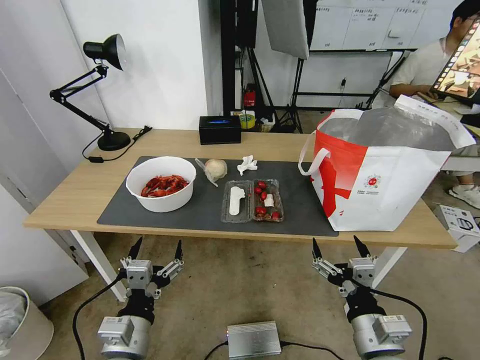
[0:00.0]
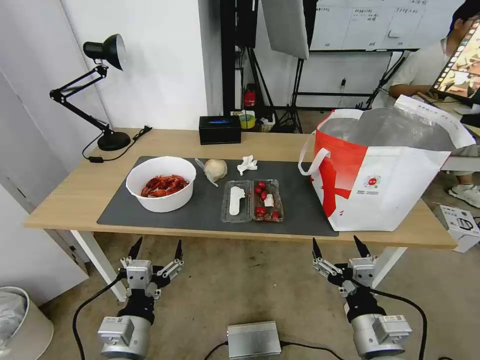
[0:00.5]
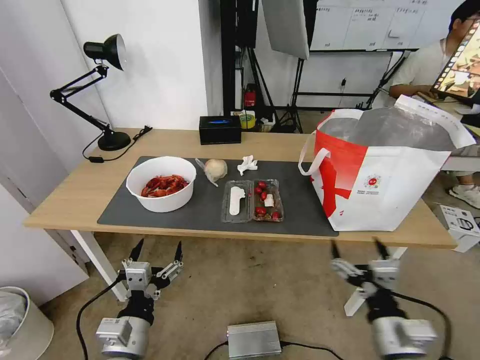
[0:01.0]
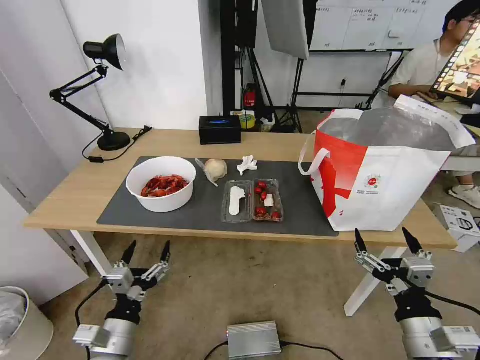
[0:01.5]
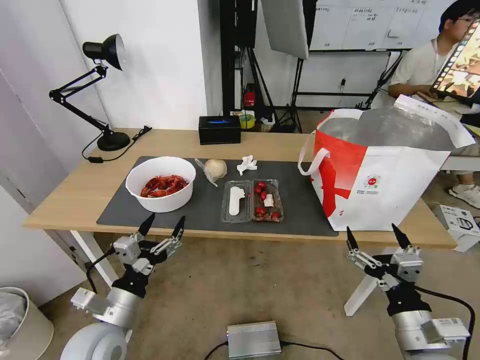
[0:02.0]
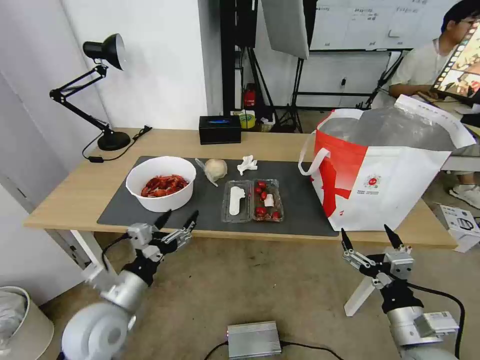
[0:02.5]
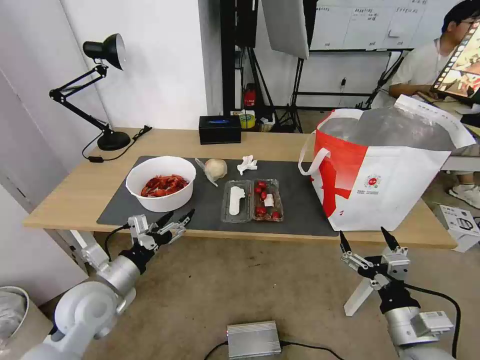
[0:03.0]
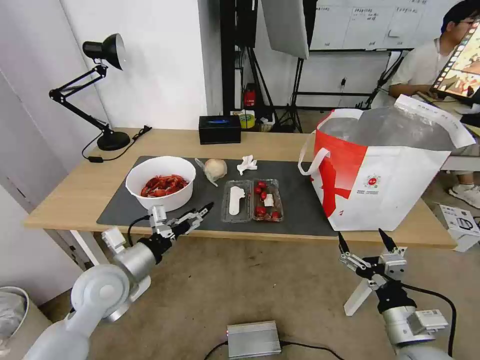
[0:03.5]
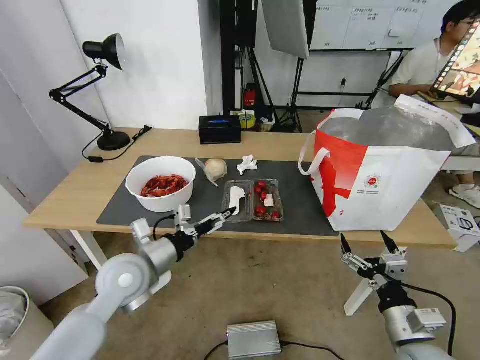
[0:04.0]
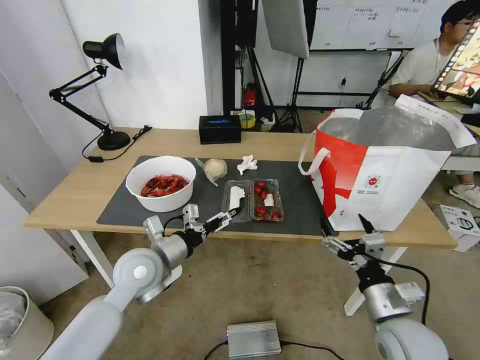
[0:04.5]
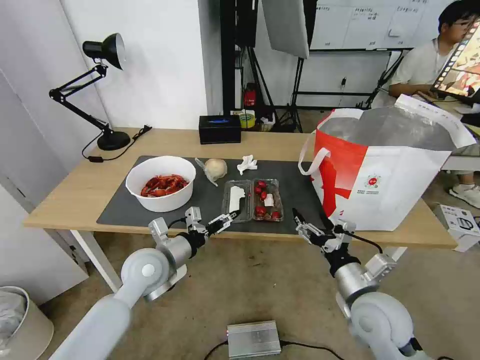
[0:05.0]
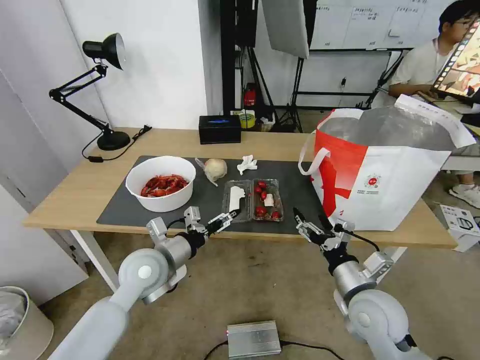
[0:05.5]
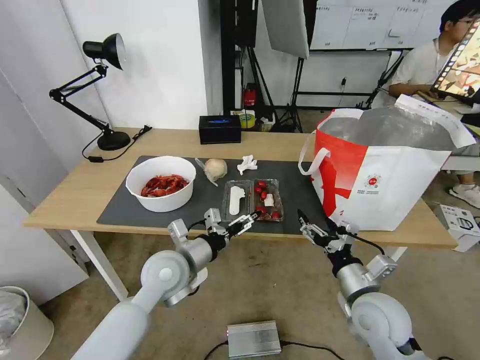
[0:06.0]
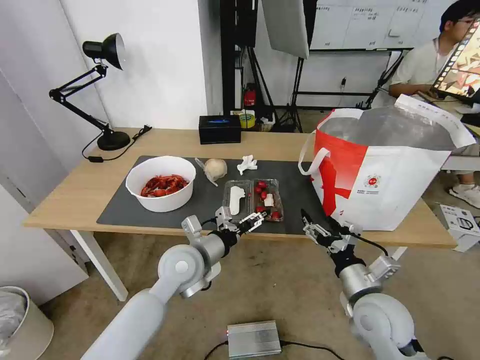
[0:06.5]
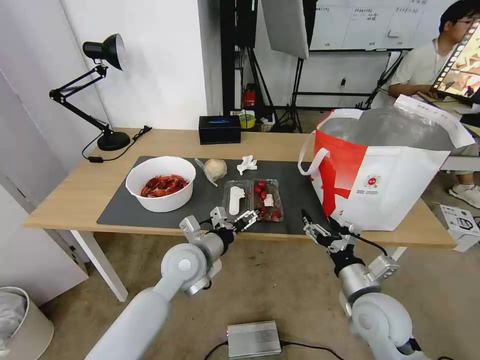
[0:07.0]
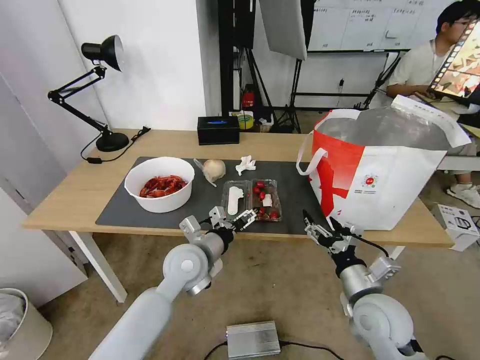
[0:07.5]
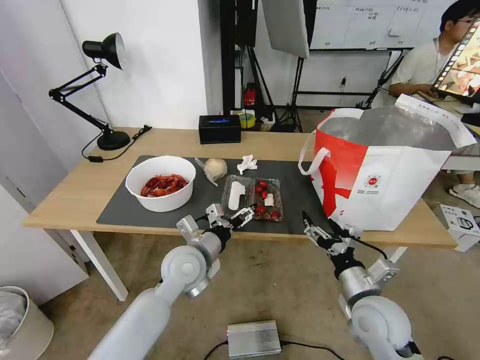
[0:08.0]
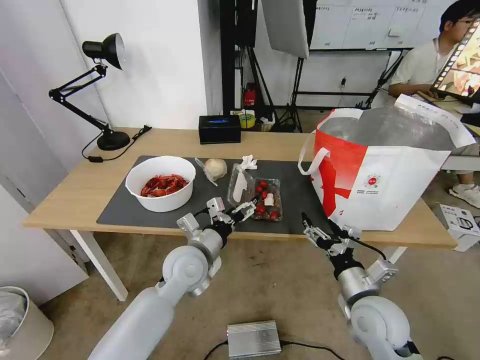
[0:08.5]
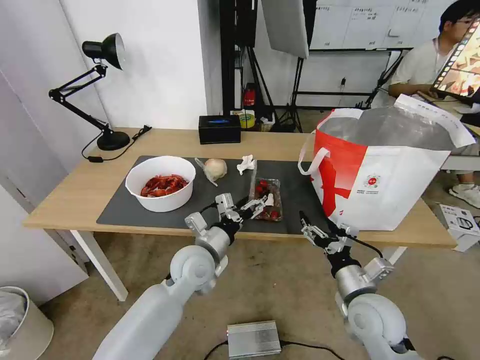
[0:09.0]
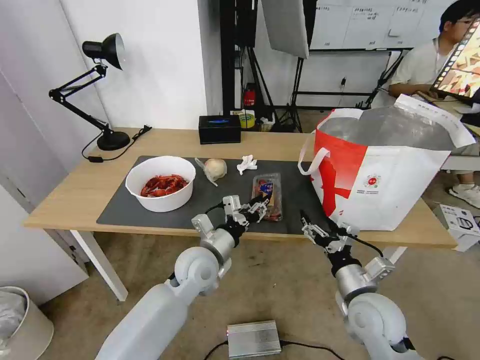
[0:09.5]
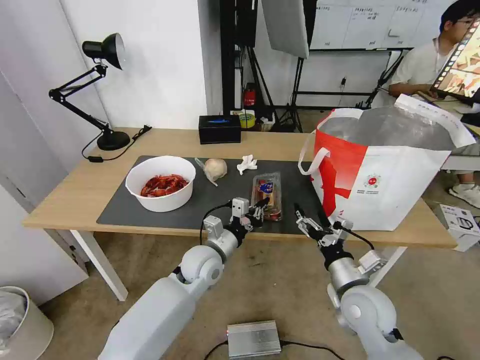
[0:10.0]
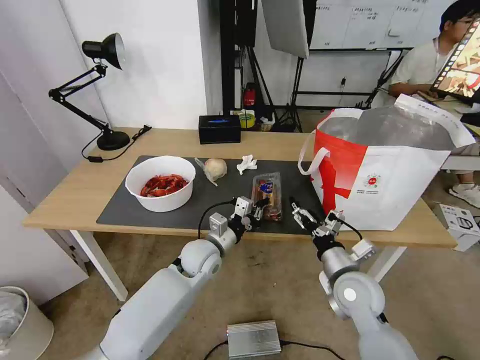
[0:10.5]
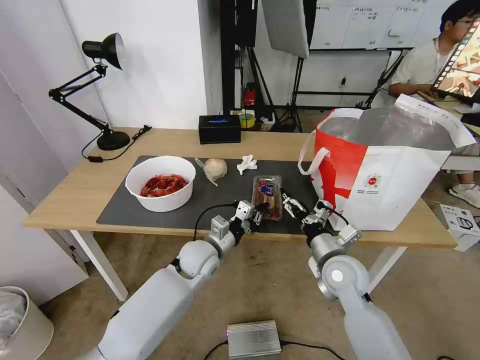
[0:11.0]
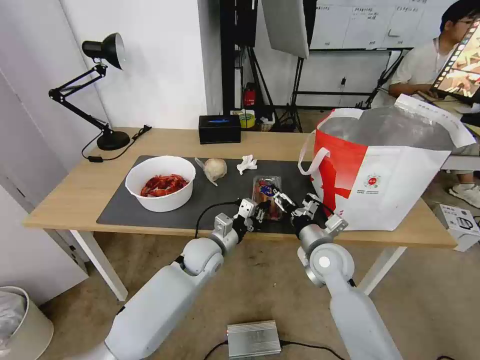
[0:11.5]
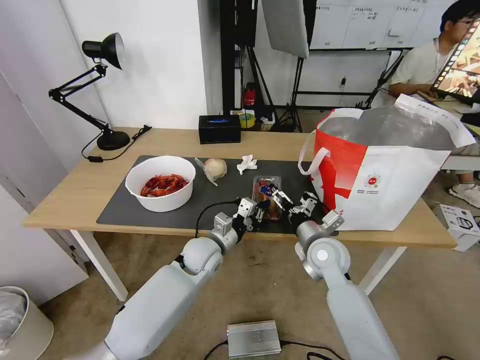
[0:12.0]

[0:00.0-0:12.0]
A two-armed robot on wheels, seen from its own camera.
Task of the whole recording: Pick up the trash from the table and place it into the takeout bag.
0:02.0 to 0:04.0: The left gripper shifts some 10 cm forward and upward.
0:04.0 to 0:06.0: The right gripper moves forward and to the left, approximately 10 cm; the left gripper is displaced to the right by roughly 5 cm.
0:06.0 to 0:08.0: The grippers move only a little.
0:08.0 to 0:10.0: The left gripper ends up about 5 cm from where it was, and closes.
0:10.0 to 0:12.0: The right gripper shifts about 10 cm forward.

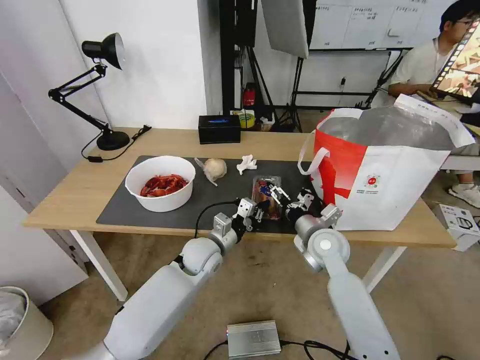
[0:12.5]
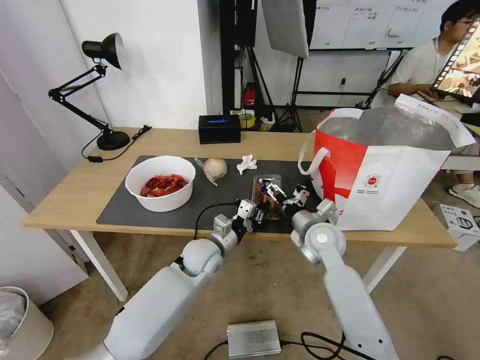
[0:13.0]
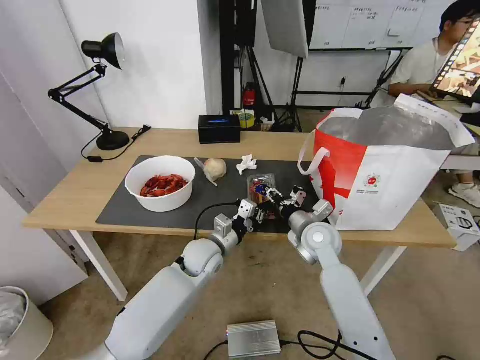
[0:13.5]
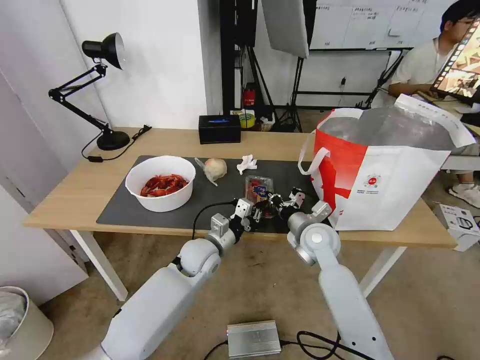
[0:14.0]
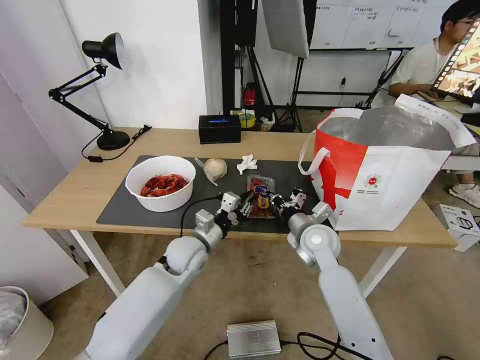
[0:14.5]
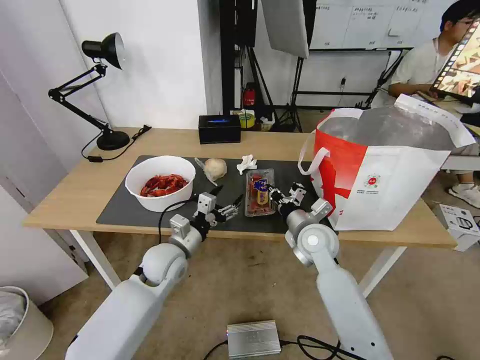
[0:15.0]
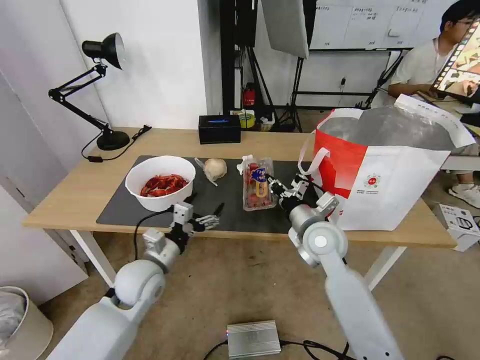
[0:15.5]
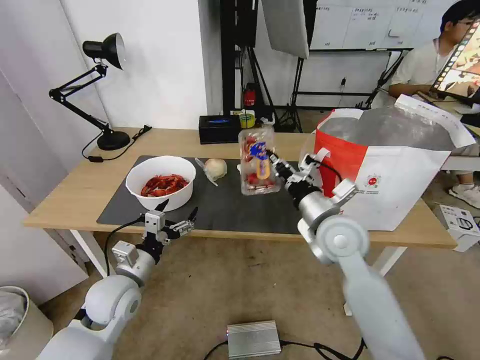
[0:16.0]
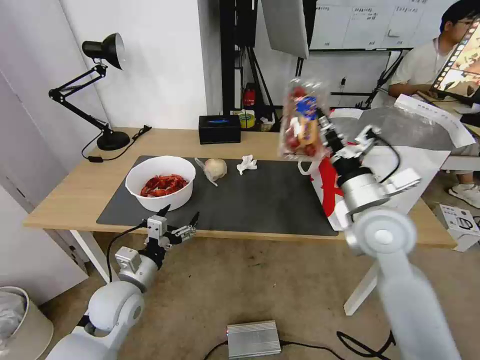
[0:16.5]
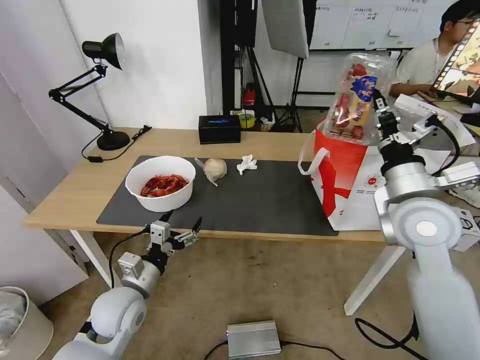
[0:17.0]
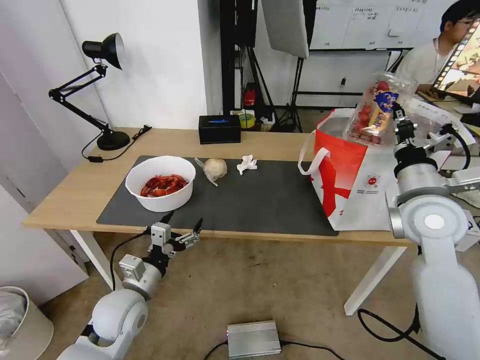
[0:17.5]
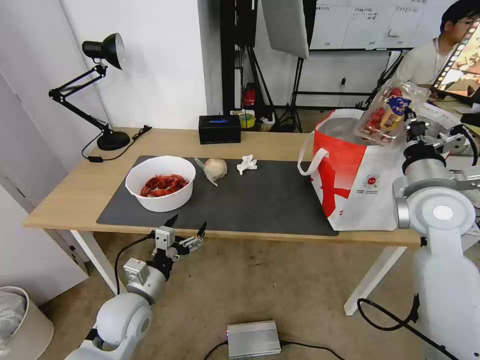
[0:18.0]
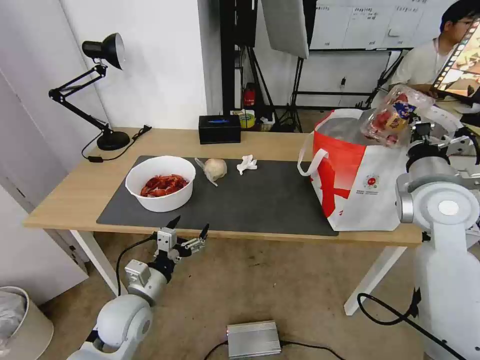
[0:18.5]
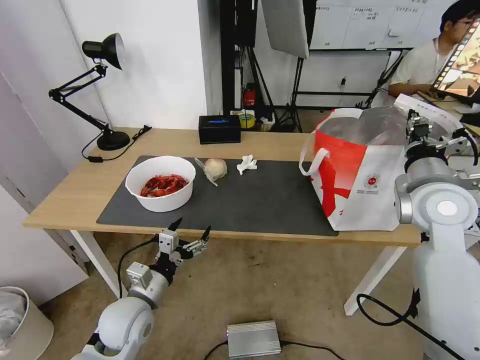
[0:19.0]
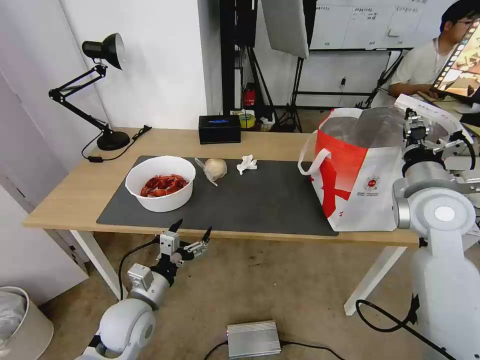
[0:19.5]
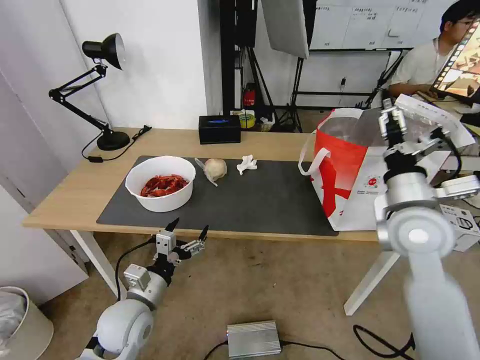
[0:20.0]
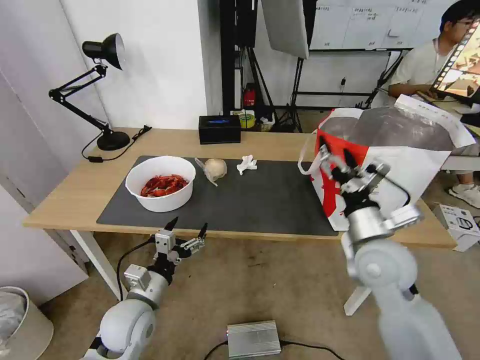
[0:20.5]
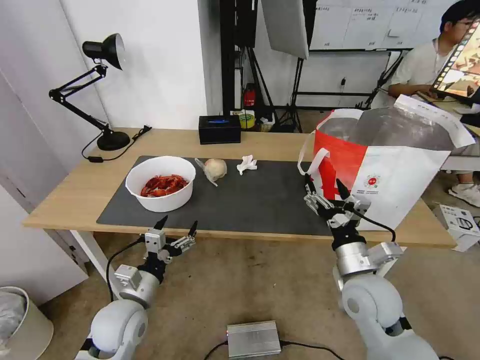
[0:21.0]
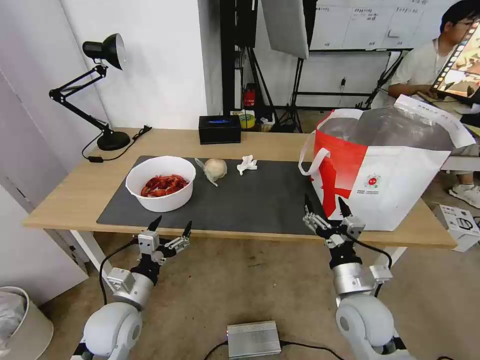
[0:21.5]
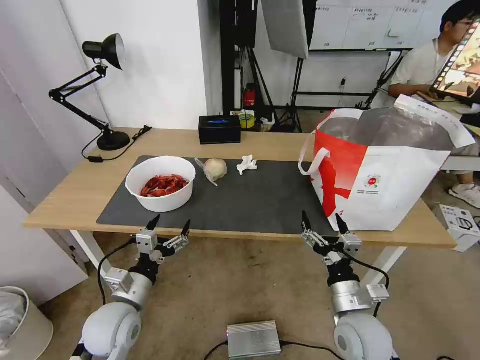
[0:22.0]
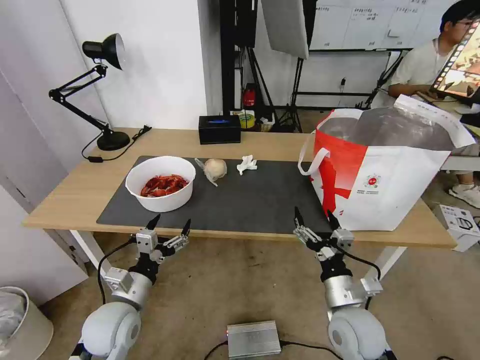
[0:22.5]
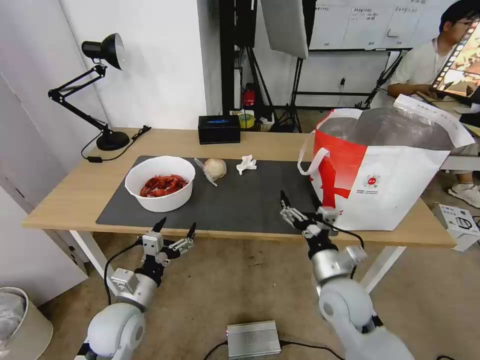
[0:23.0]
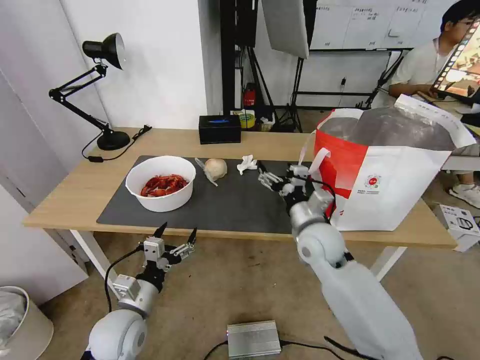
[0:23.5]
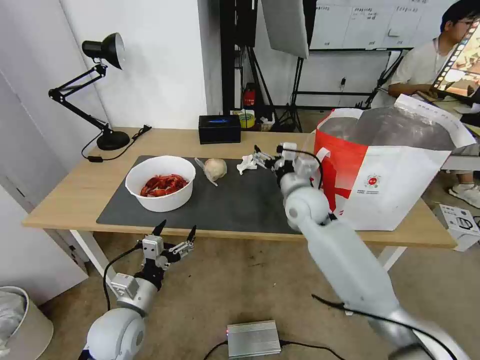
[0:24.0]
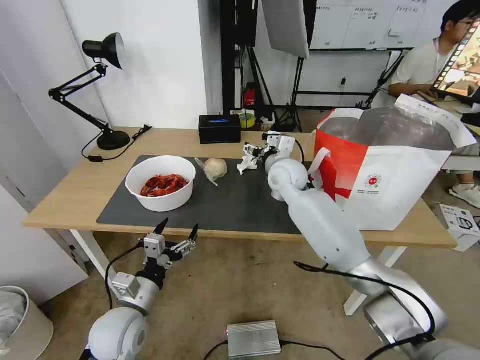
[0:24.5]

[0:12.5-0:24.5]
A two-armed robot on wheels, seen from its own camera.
Task of the whole recording: Pick up the trash from the table and place it into the takeout bag.
0:12.5 to 0:14.5: The right gripper closes its fingers.
0:14.5 to 0:16.5: The left gripper heads to the left and backward, covering some 15 cm, and opens its fingers, while the right gripper shifts about 15 cm upward and backward.
0:16.5 to 0:18.5: The right gripper moves to the right, roughly 10 cm.
0:18.5 to 0:20.5: The right gripper travels downward, to the left and backward by about 15 cm, and opens its fingers.
0:20.5 to 0:22.5: The right gripper shifts roughly 15 cm downward and backward.
0:22.5 to 0:24.5: The right gripper shifts roughly 35 cm forward and upward.

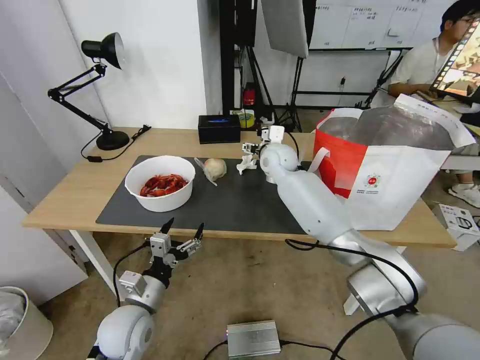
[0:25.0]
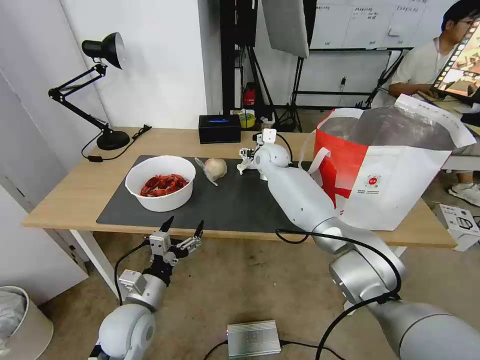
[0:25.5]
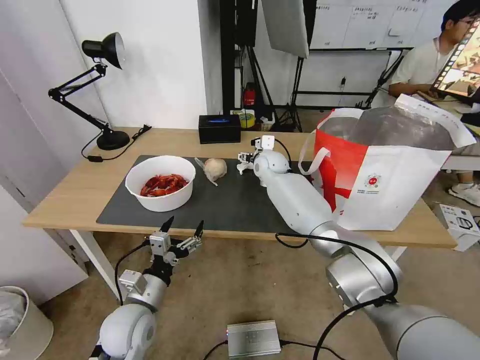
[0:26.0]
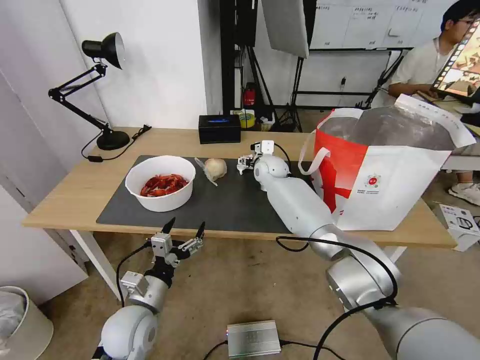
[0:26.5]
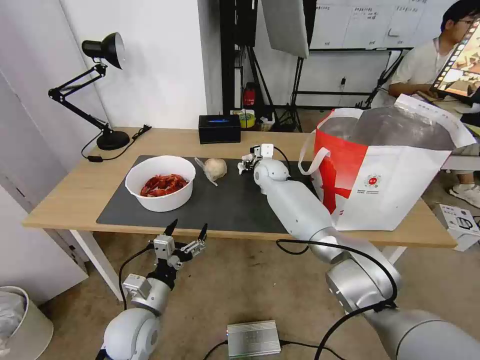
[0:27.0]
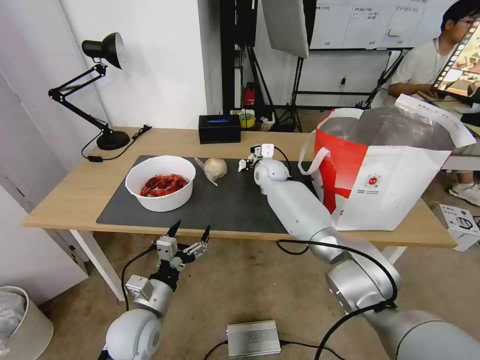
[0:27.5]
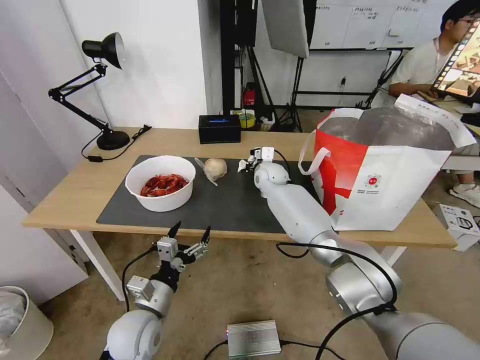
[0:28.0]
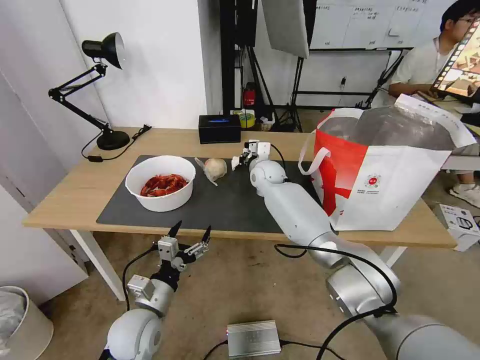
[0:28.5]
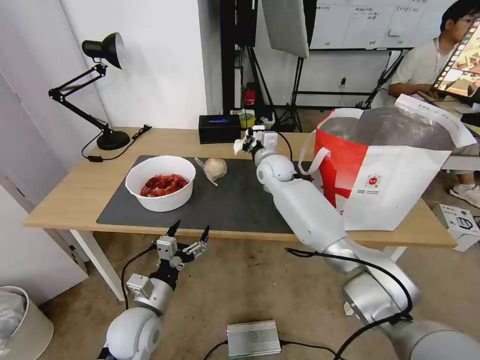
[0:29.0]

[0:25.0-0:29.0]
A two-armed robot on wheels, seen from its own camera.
Task of the whole recording: Pick up the trash from the table and place it into the takeout bag.
0:25.0 to 0:27.0: The right gripper heads downward, covering approximately 5 cm, and closes.
0:27.0 to 0:29.0: The right gripper ends up roughly 5 cm from where it was, and closes up.
